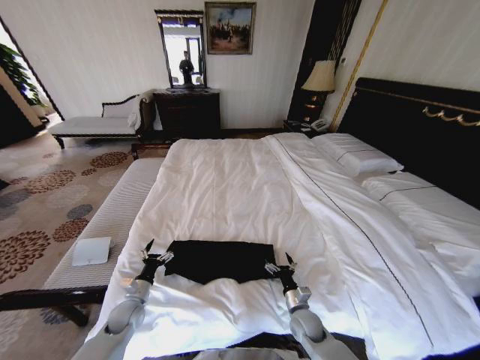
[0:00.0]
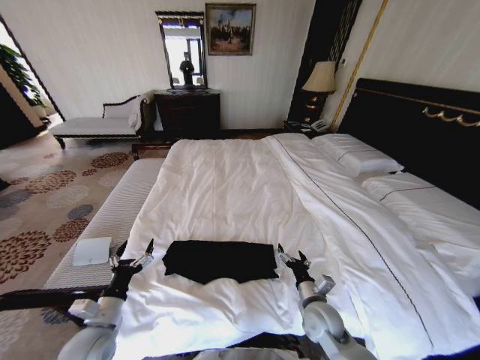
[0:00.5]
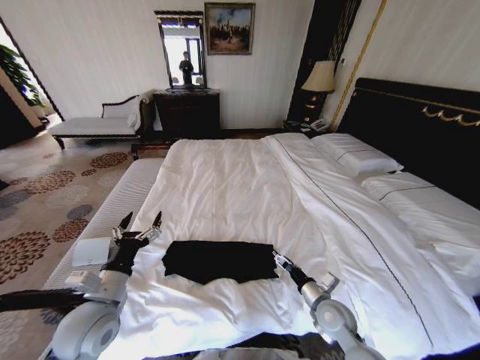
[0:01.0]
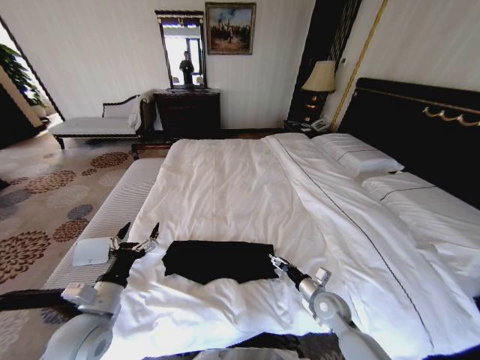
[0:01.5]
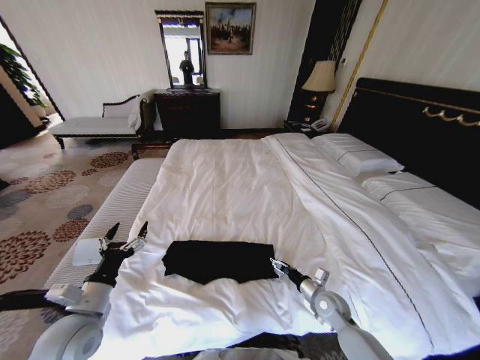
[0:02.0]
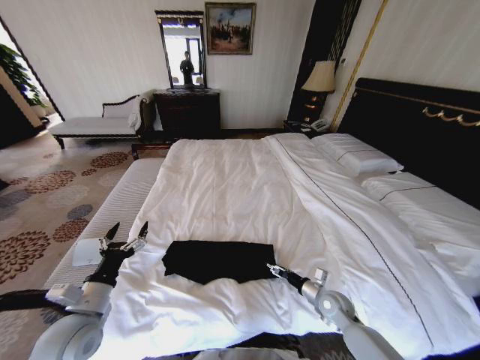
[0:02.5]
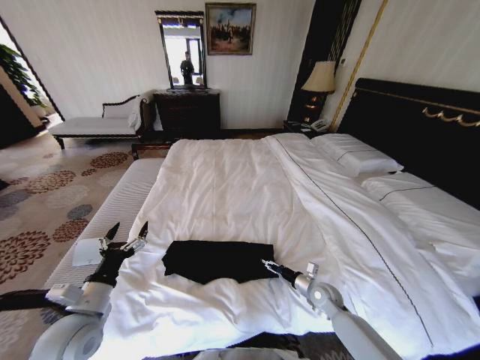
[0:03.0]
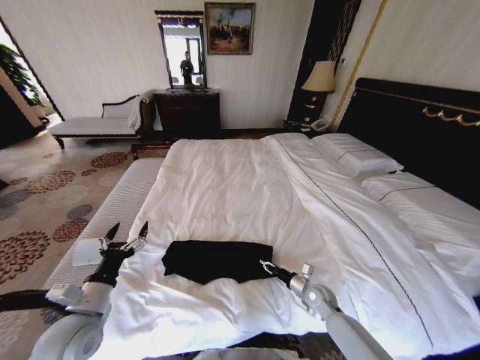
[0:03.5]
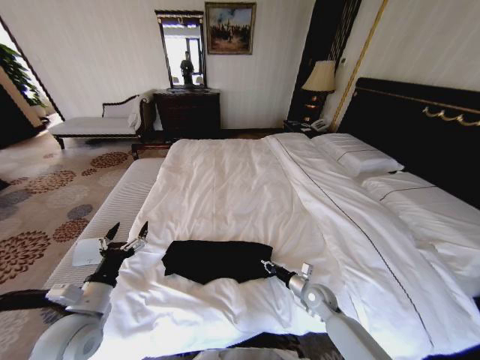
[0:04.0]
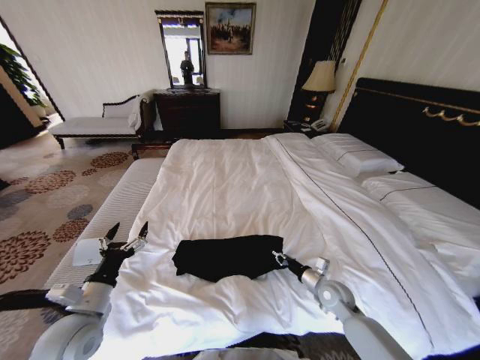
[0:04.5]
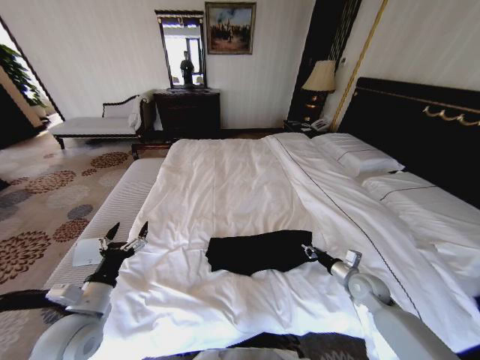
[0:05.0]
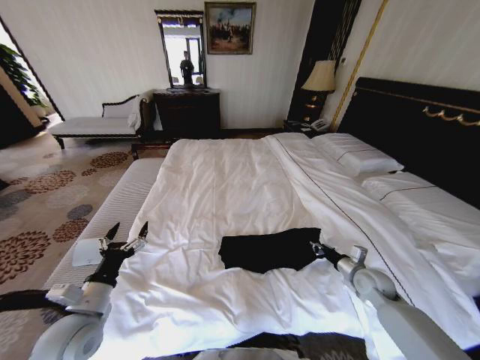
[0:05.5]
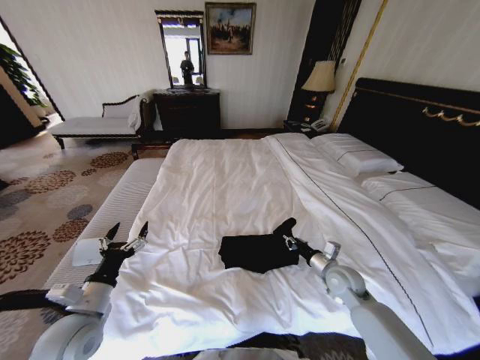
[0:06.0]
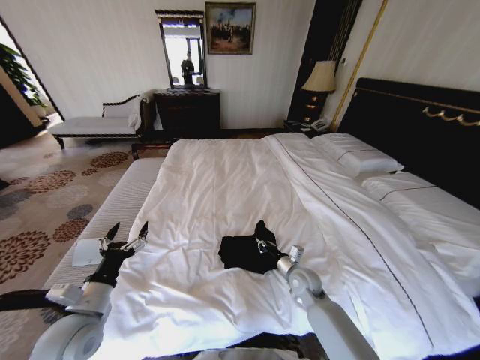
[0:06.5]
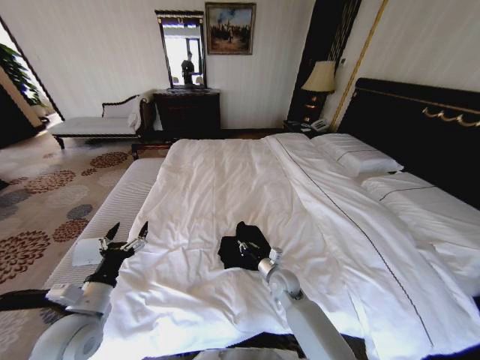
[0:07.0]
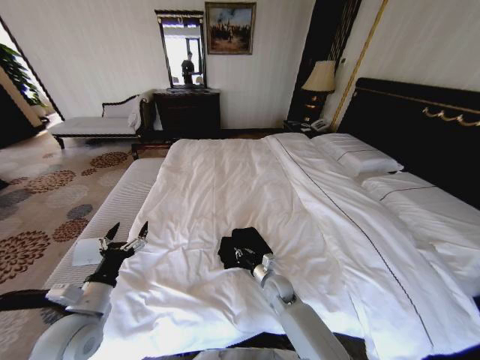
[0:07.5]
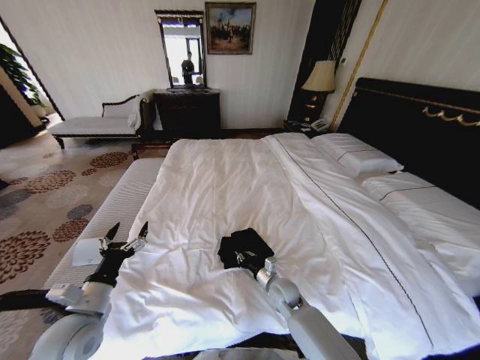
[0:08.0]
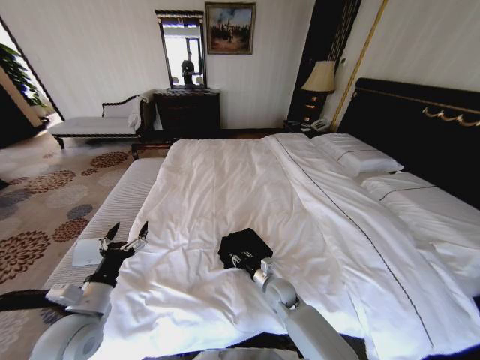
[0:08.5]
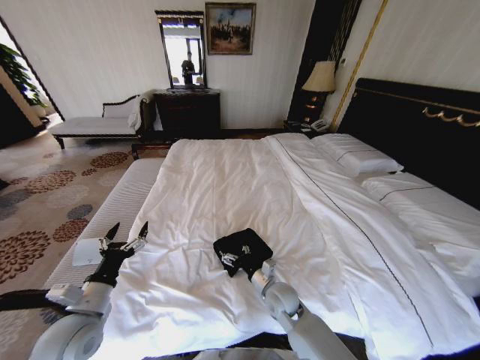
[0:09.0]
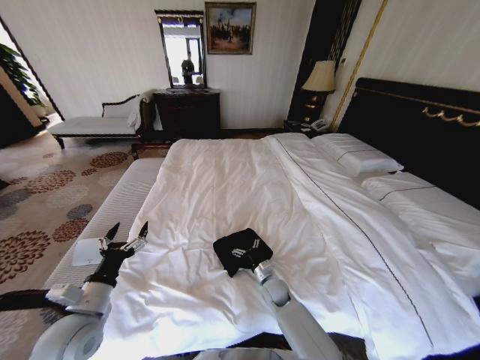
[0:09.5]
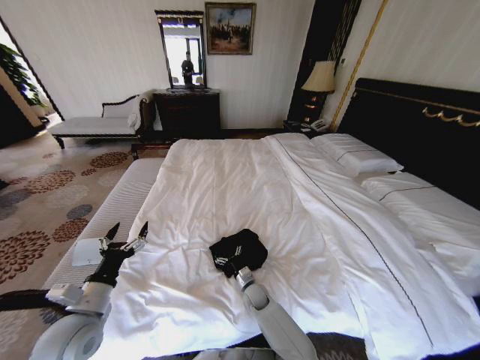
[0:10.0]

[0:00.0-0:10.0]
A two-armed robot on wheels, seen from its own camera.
Task of the whole recording: Fold the clothes on the bed.
0:00.0 to 0:02.0: The left gripper is displaced upward and backward by about 20 cm. The right gripper heads to the right and upward, covering about 10 cm.
0:02.0 to 0:04.0: The right gripper closes.
0:04.0 to 0:06.0: The right gripper moves upward, roughly 10 cm, and goes to the right and returns, roughly 15 cm each way.
0:06.0 to 0:08.0: The right gripper is displaced to the left and downward by approximately 20 cm.
0:08.0 to 0:10.0: The right gripper shifts about 15 cm downward and to the left, and opens its fingers.

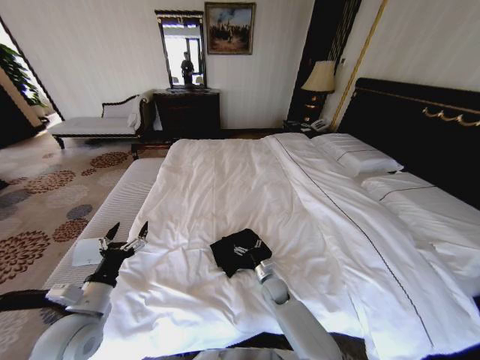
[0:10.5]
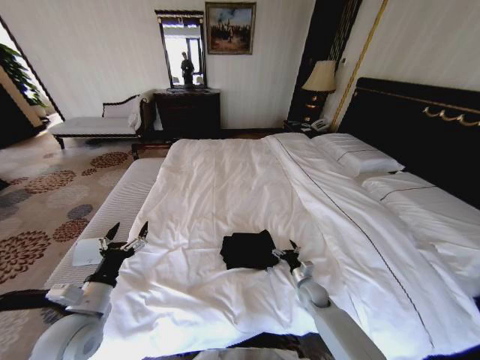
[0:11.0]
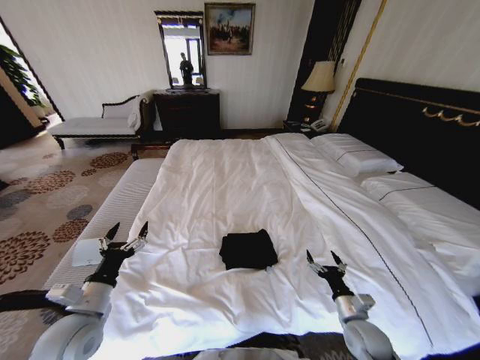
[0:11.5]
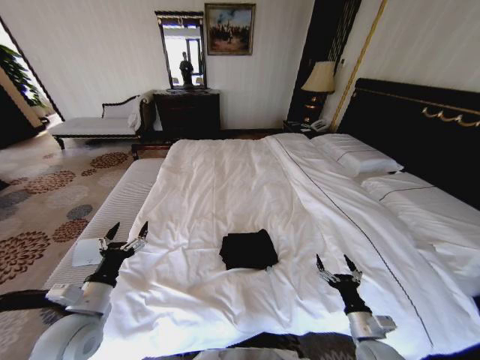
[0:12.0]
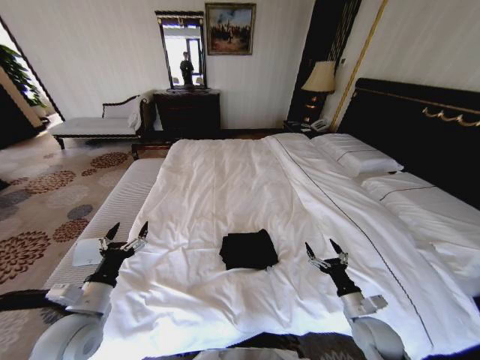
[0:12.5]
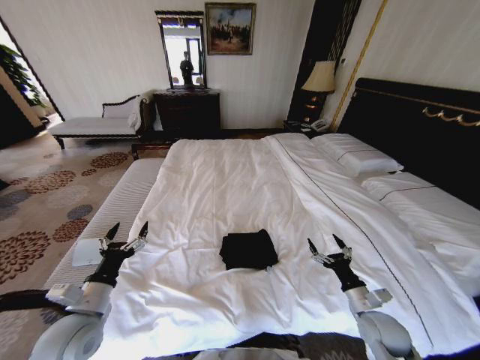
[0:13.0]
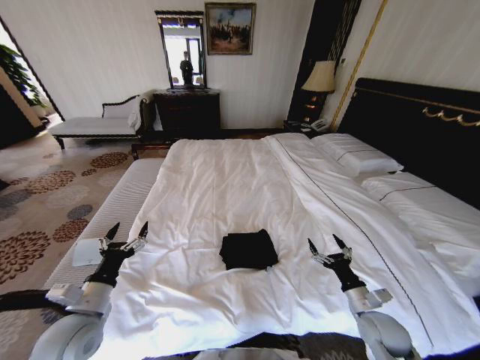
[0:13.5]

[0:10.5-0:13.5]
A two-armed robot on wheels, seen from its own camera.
Task of the whole recording: Fold the clothes on the bed.
0:10.5 to 0:12.0: The right gripper moves to the right, backward and upward, approximately 30 cm.
0:12.0 to 0:13.5: The right gripper is displaced forward by some 5 cm.

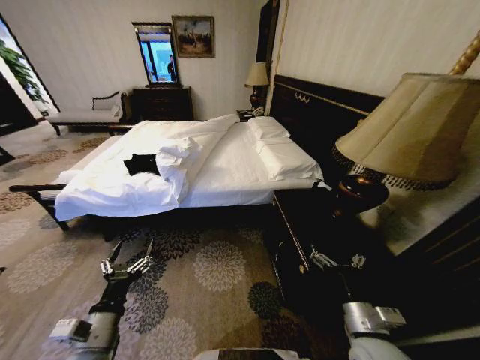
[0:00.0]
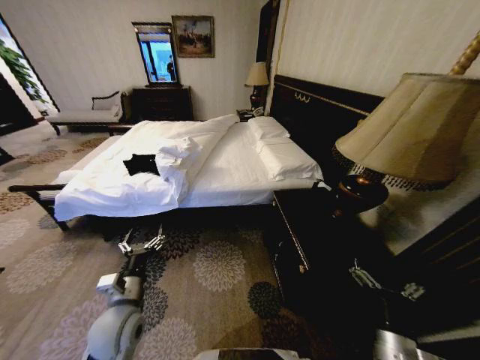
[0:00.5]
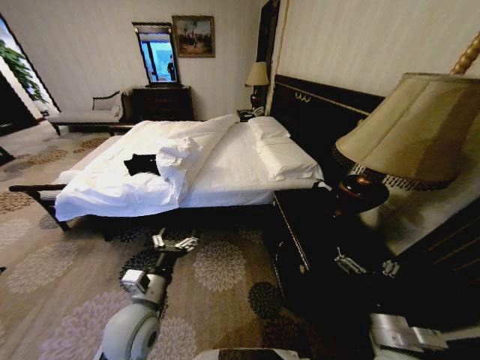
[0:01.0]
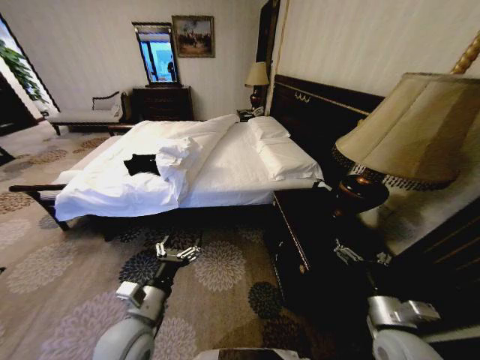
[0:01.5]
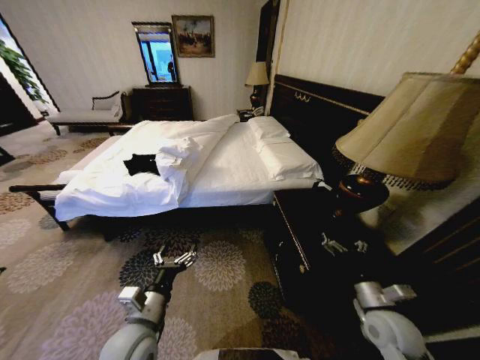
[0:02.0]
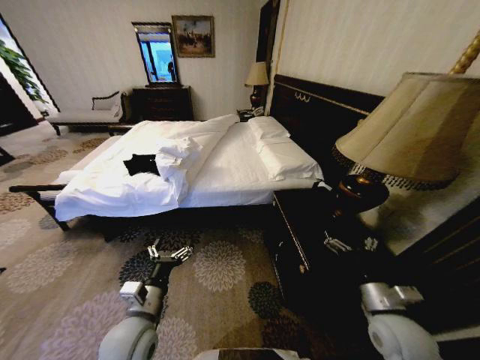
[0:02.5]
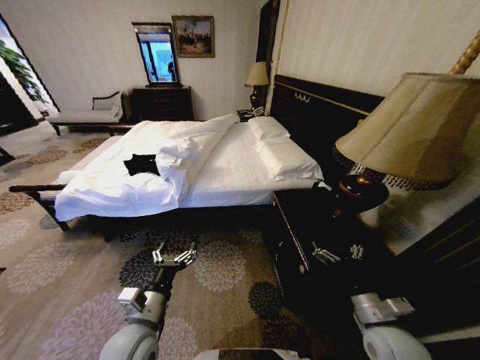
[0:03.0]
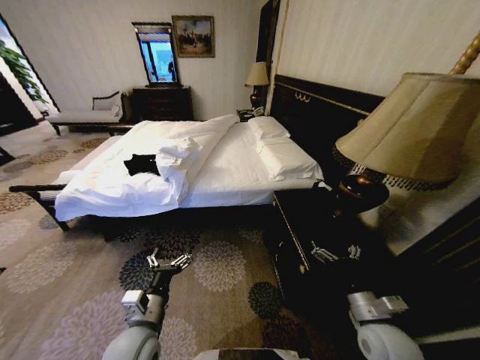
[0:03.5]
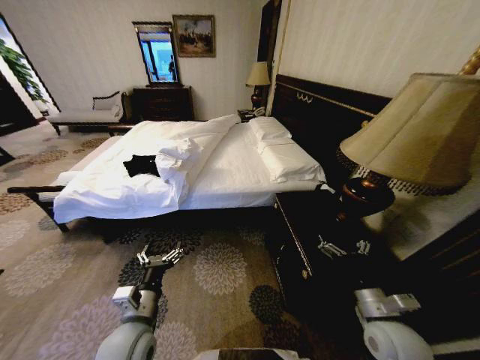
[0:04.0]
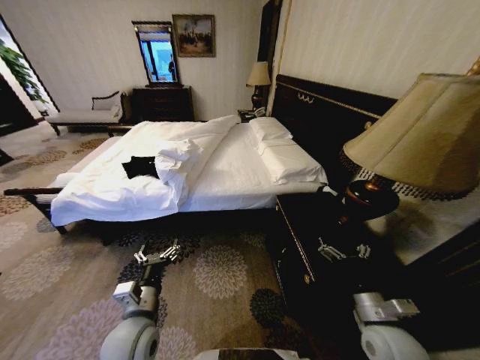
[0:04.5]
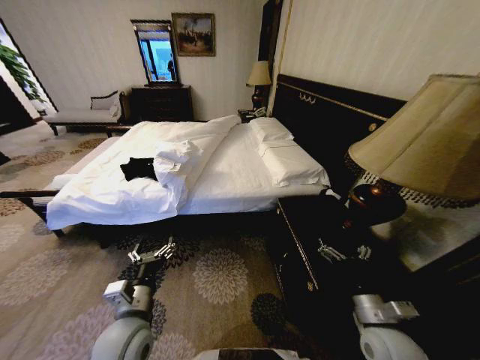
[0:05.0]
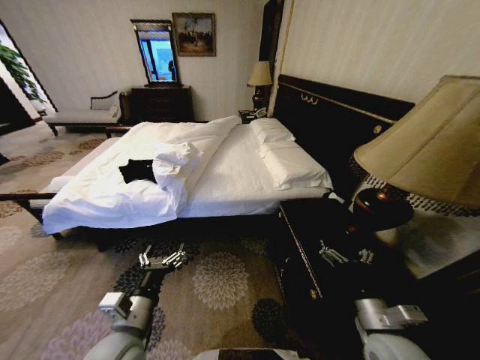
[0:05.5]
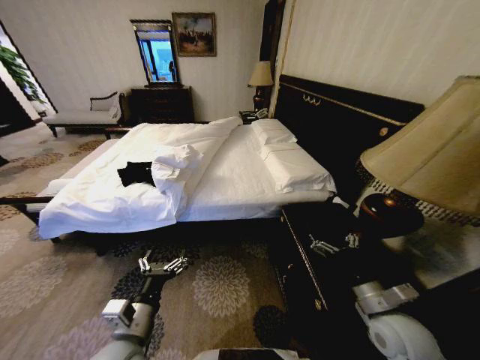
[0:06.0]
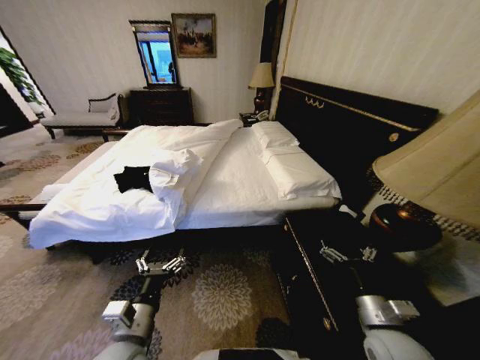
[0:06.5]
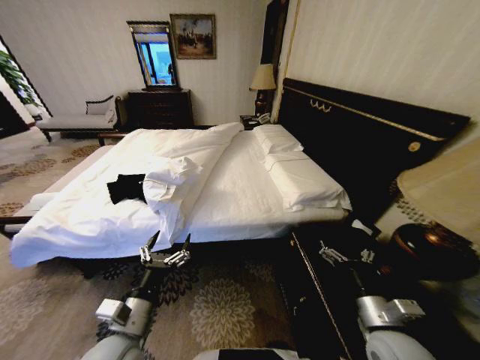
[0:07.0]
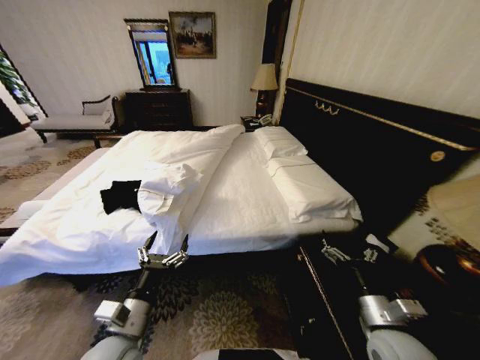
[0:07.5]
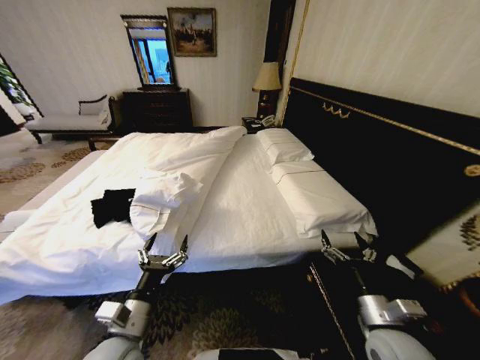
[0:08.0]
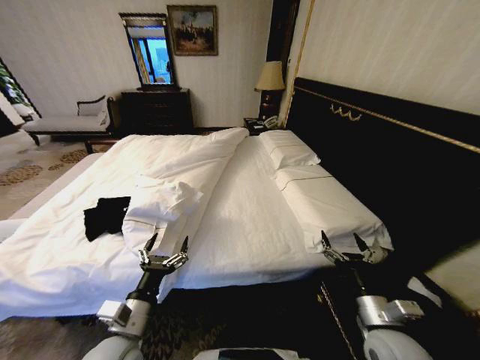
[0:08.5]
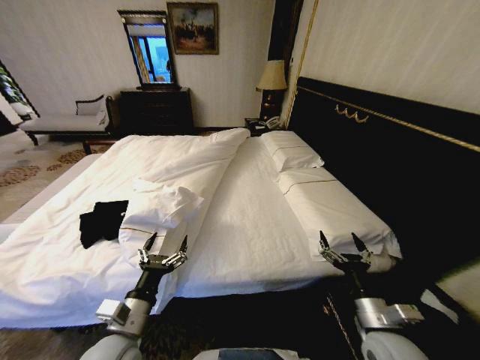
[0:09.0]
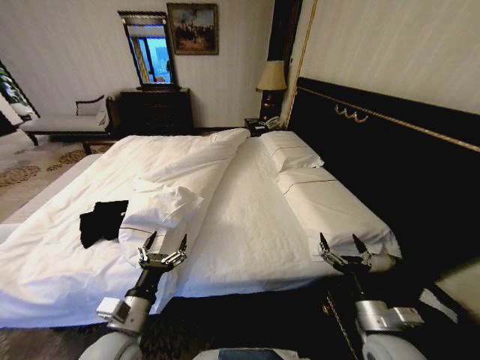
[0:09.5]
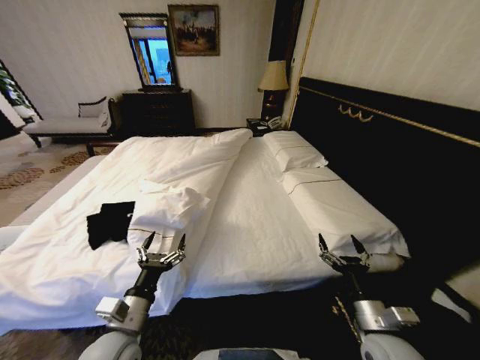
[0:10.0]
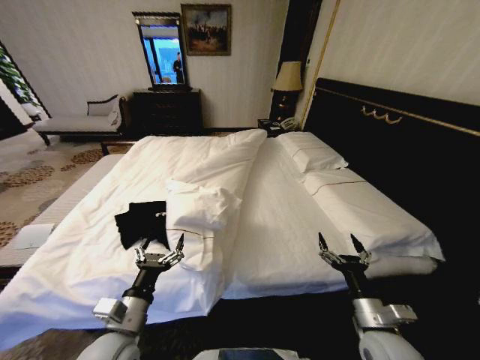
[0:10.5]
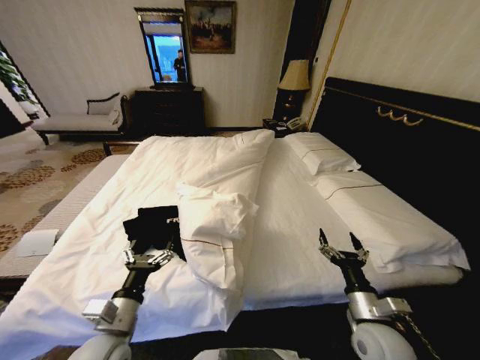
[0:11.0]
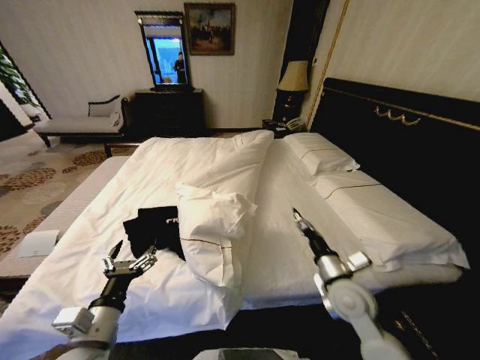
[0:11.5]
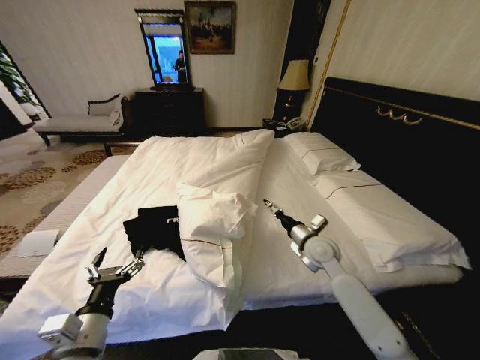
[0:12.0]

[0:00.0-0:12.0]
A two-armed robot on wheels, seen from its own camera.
Task of the whole recording: Fold the clothes on the bed.
0:02.0 to 0:04.0: There are only small adjustments of the grippers.
0:10.0 to 0:12.0: The right gripper is displaced forward by some 25 cm. Meanwhile the left gripper travels to the left by roughly 5 cm.
